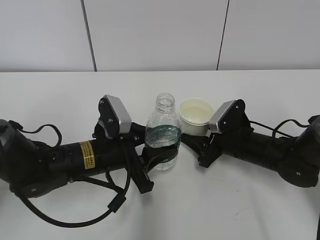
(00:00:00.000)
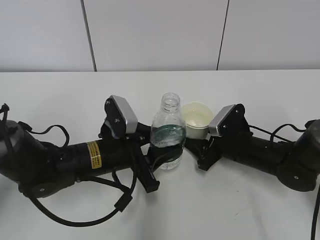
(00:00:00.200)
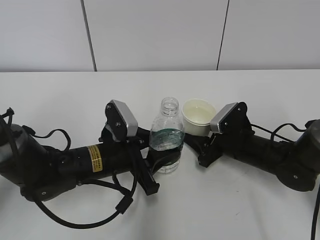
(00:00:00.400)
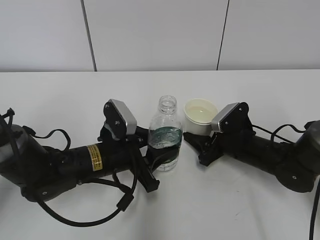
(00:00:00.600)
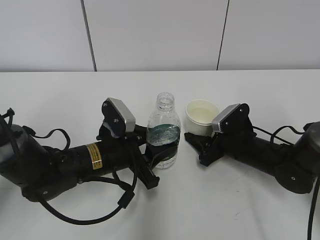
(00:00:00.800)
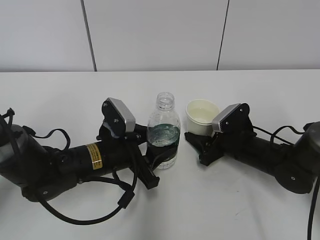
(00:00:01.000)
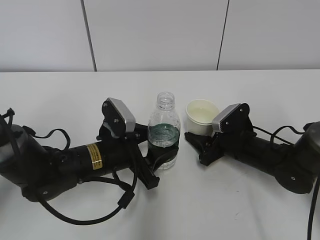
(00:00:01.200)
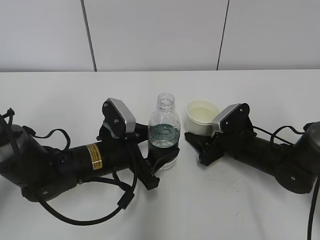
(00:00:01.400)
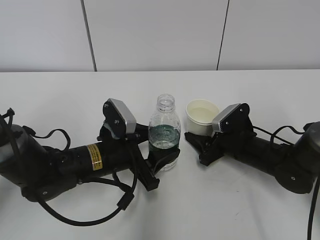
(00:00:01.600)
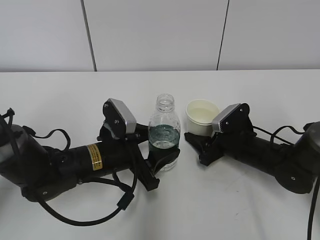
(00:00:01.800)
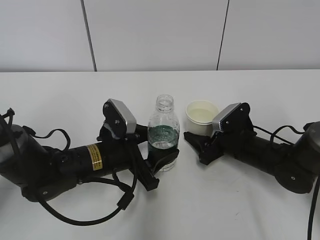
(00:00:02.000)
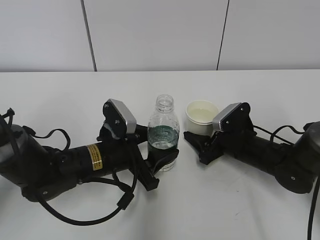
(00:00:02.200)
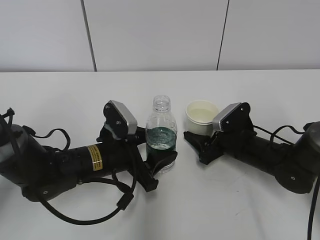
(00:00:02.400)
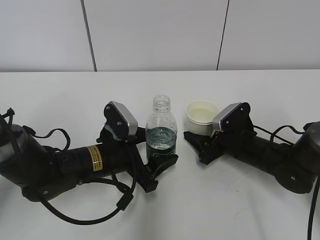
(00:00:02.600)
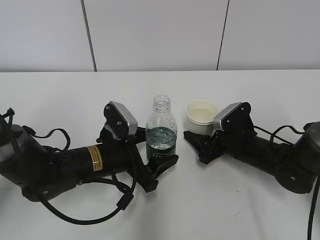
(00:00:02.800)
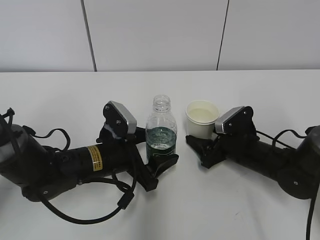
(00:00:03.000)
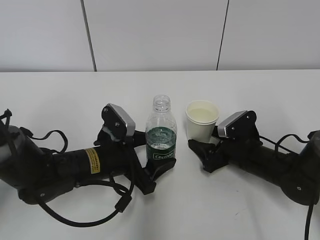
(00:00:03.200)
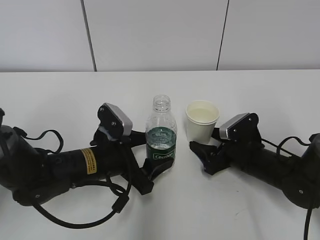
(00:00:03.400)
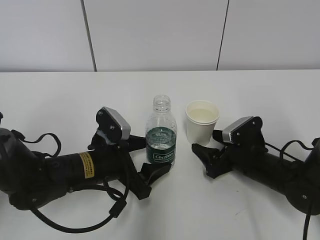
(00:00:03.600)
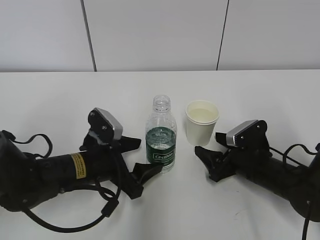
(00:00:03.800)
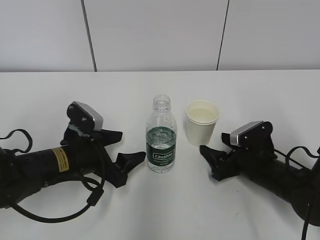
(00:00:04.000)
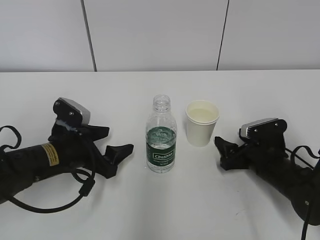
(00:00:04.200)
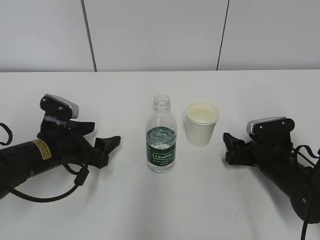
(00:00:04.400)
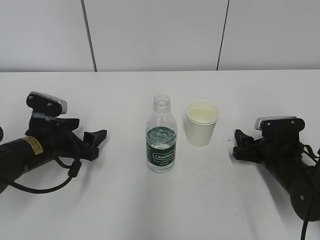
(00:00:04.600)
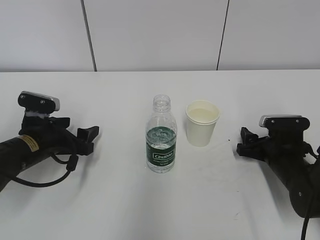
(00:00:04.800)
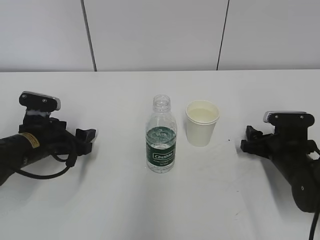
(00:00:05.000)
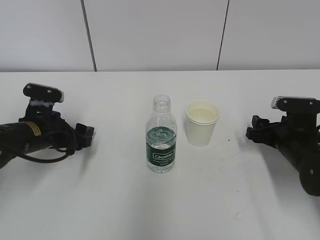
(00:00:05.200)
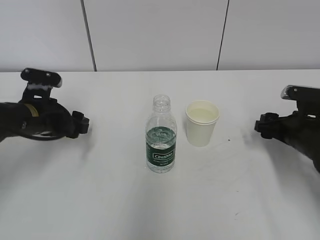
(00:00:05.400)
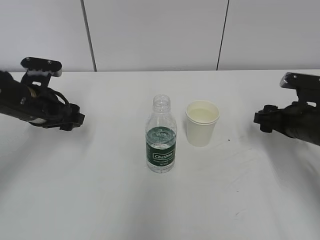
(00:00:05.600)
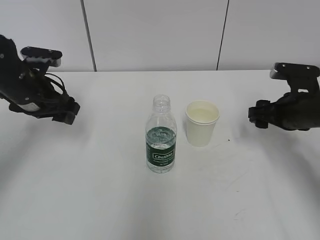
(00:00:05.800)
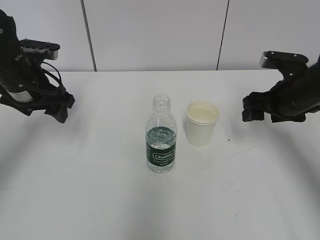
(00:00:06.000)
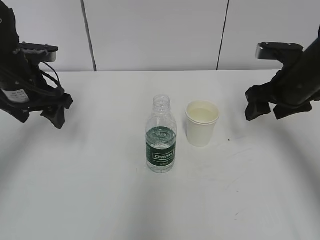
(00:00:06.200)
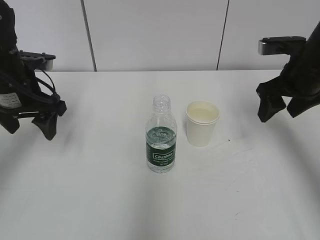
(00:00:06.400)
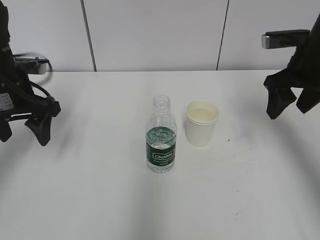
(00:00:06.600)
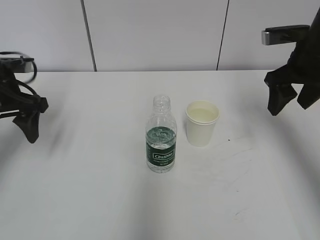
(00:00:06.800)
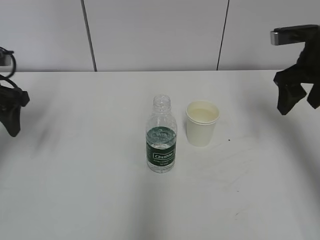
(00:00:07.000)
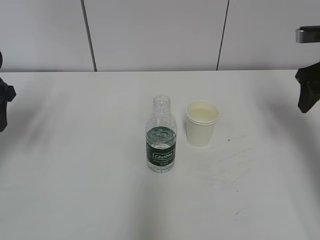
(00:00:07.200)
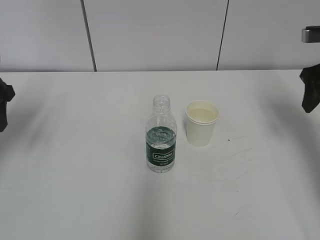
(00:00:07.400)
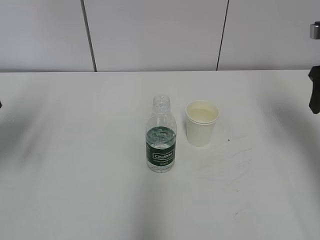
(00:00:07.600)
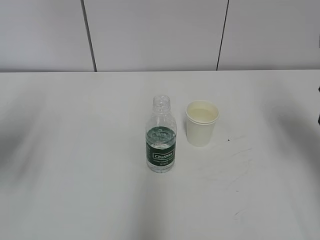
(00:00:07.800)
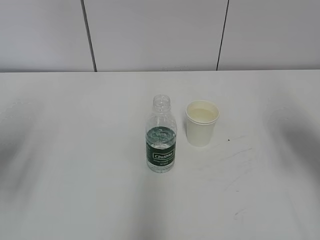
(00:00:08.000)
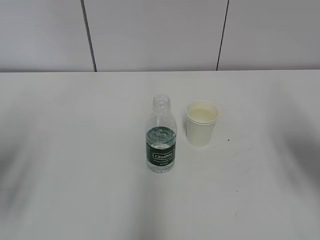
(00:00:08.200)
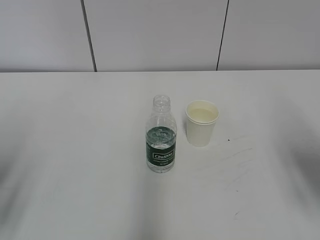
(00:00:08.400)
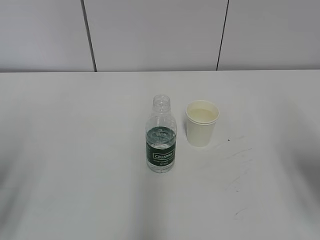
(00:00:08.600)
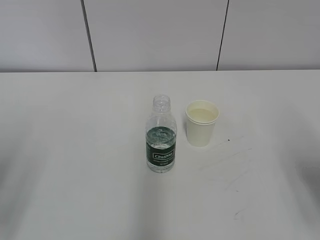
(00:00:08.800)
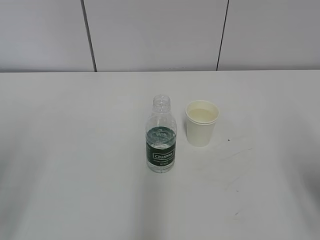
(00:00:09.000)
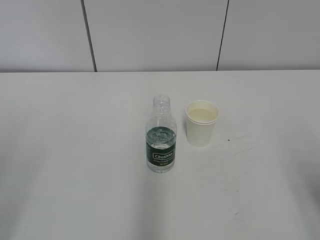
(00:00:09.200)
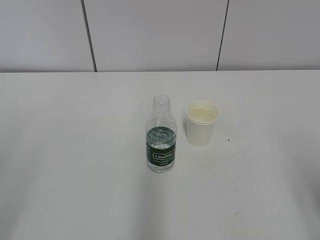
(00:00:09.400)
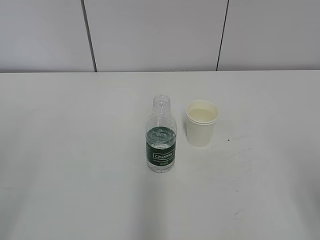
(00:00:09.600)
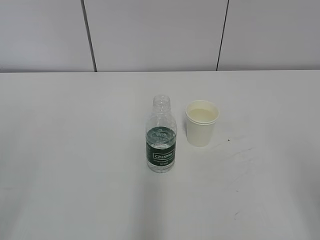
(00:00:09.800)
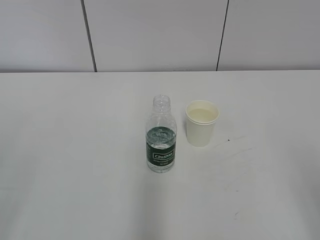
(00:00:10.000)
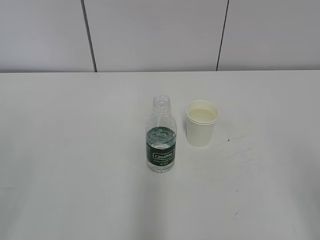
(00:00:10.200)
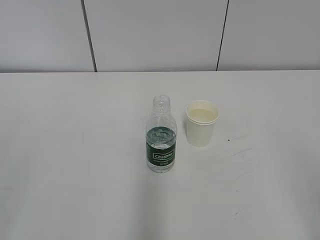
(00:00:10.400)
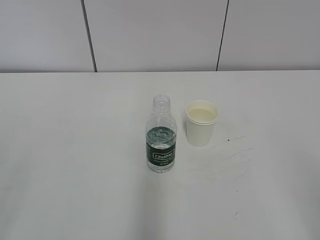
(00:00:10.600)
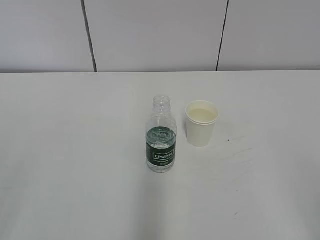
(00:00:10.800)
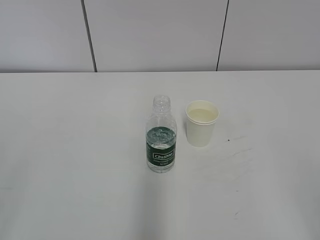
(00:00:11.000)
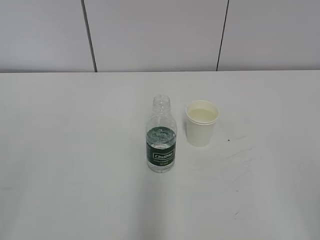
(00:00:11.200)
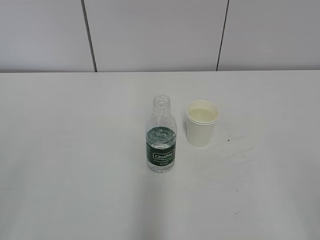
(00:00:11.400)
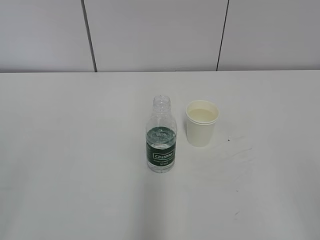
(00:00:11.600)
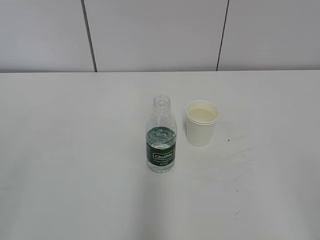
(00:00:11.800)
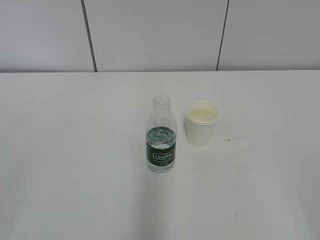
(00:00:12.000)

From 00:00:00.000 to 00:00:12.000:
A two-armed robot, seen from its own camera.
From 00:00:00.000 to 00:00:01.600: The left gripper opens.
From 00:00:01.600 to 00:00:03.000: The right gripper opens its fingers. Meanwhile the left gripper opens its fingers.
From 00:00:03.000 to 00:00:04.400: The left gripper is displaced to the left by roughly 10 cm. Meanwhile the right gripper moves about 5 cm.
From 00:00:04.400 to 00:00:06.000: The right gripper travels upward by roughly 15 cm, while the left gripper shifts about 15 cm upward, forward and to the left.
From 00:00:06.000 to 00:00:07.600: The left gripper heads to the left, backward and upward, covering roughly 10 cm; the right gripper heads upward and to the right, covering about 10 cm.
From 00:00:07.600 to 00:00:09.000: The grippers both shift backward by some 20 cm.

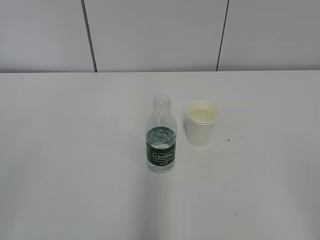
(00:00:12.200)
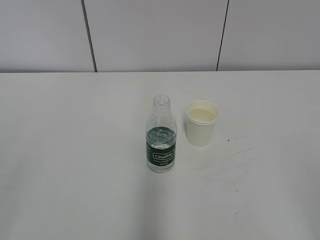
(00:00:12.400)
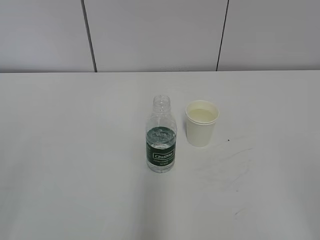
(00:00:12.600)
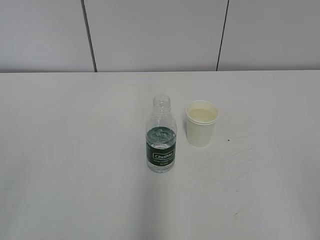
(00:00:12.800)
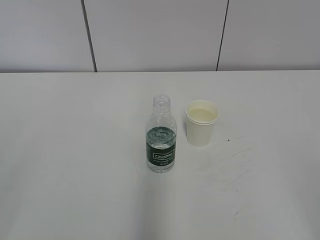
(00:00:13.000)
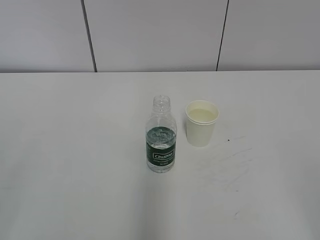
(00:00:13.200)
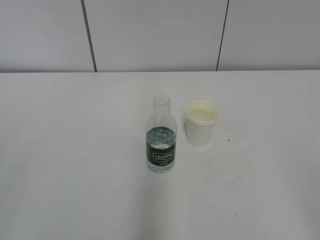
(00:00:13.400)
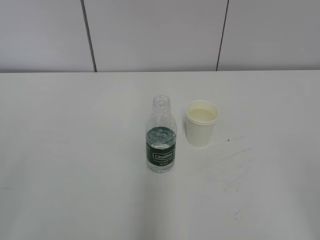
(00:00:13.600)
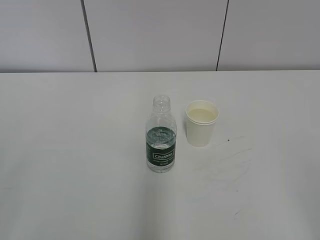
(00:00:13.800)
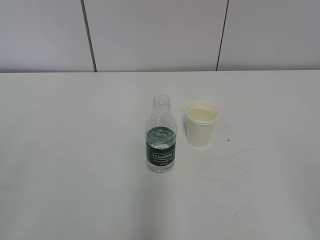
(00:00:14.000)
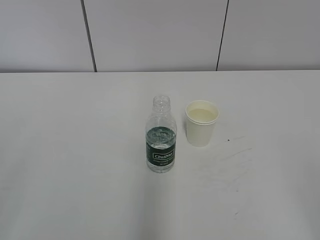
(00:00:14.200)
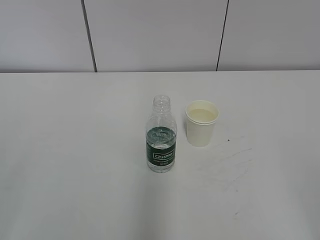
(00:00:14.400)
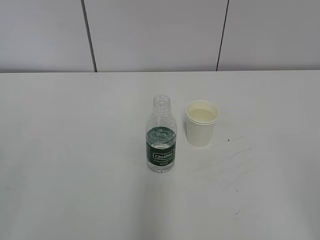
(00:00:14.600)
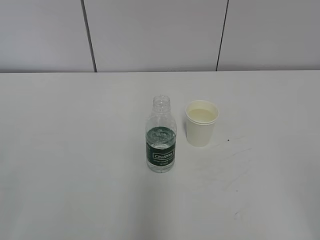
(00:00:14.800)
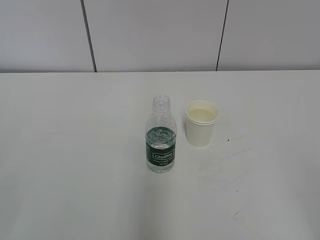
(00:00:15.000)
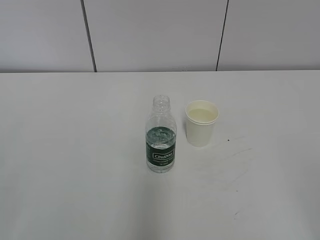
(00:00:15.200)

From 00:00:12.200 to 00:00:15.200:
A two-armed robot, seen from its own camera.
From 00:00:12.200 to 00:00:13.800: Both grippers stay put.
